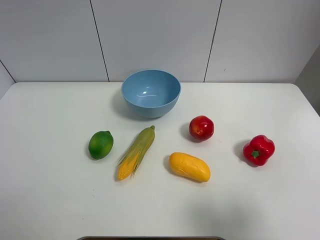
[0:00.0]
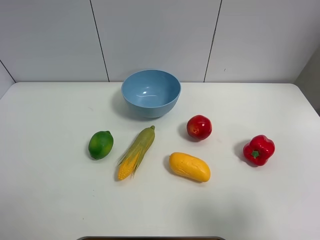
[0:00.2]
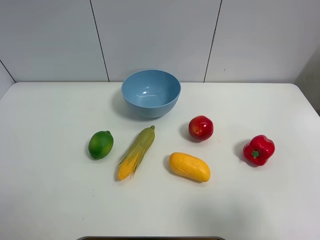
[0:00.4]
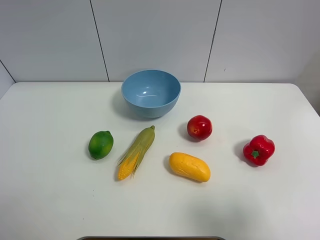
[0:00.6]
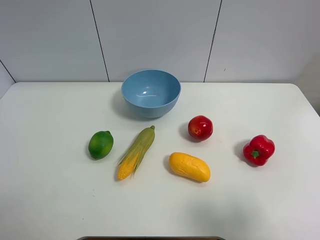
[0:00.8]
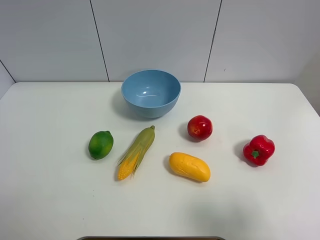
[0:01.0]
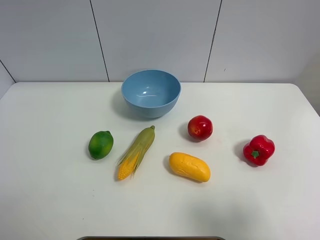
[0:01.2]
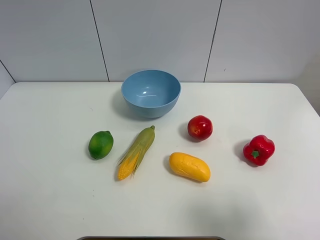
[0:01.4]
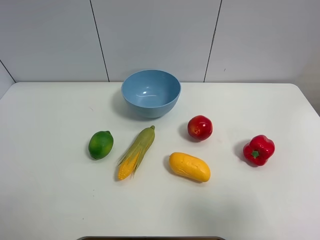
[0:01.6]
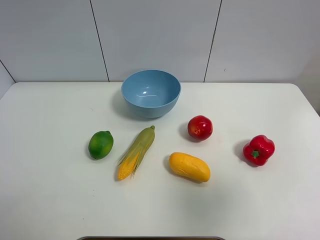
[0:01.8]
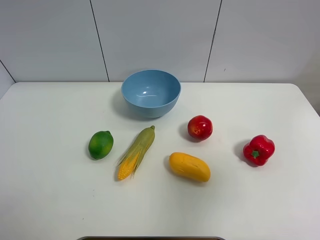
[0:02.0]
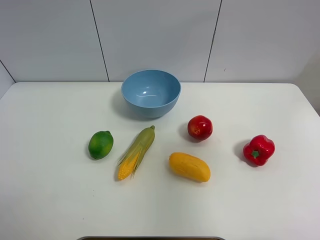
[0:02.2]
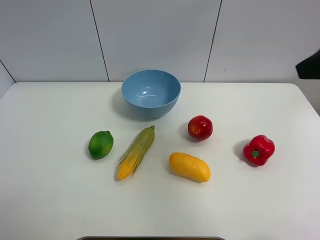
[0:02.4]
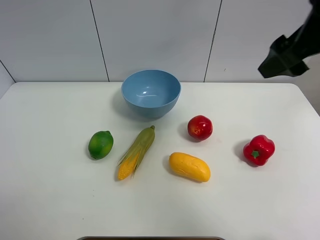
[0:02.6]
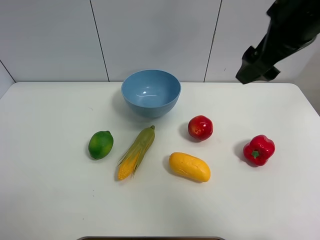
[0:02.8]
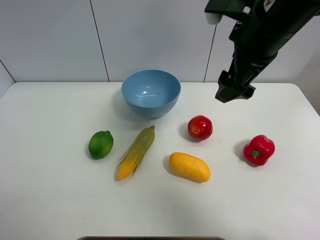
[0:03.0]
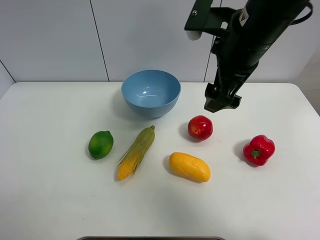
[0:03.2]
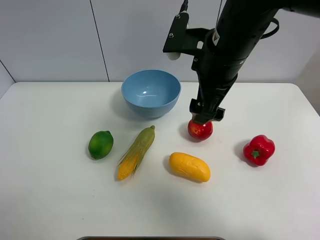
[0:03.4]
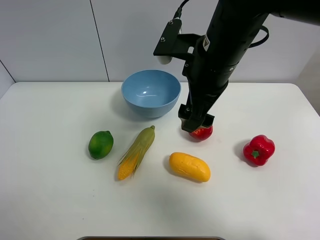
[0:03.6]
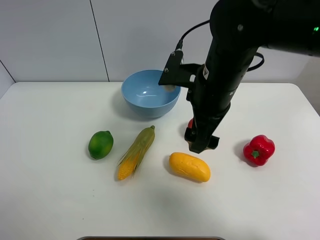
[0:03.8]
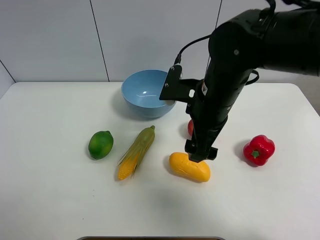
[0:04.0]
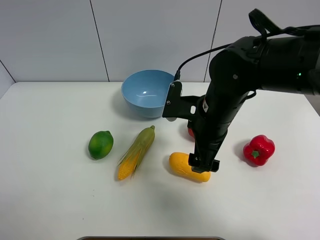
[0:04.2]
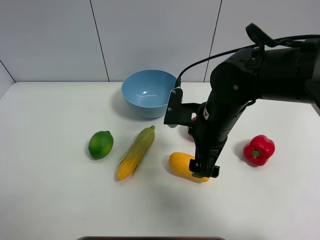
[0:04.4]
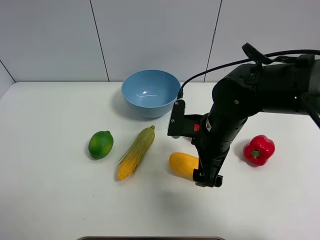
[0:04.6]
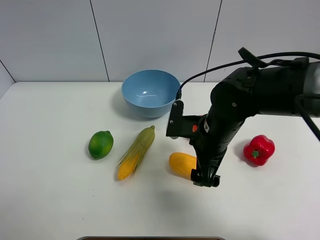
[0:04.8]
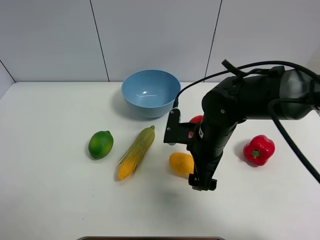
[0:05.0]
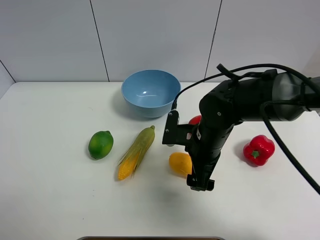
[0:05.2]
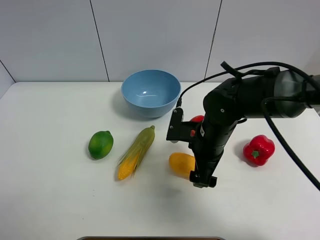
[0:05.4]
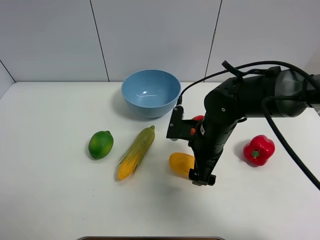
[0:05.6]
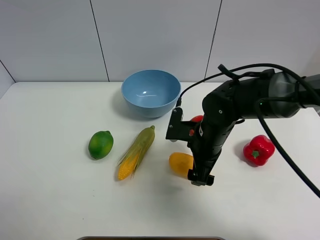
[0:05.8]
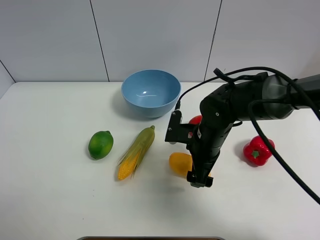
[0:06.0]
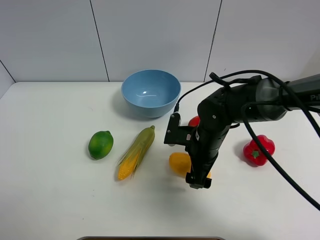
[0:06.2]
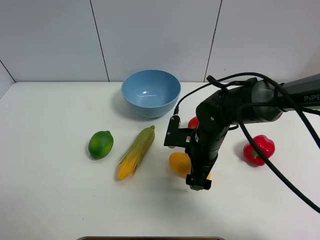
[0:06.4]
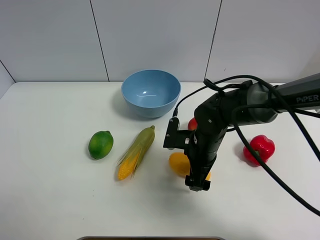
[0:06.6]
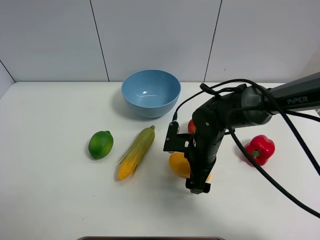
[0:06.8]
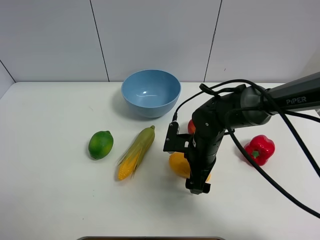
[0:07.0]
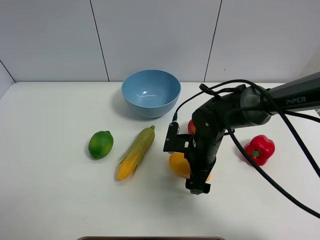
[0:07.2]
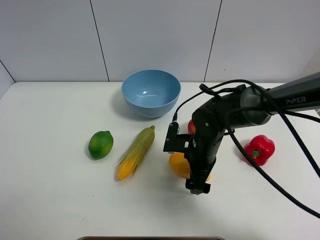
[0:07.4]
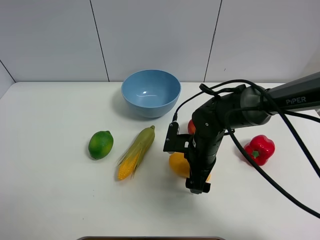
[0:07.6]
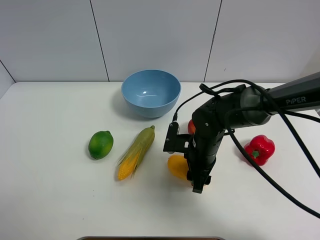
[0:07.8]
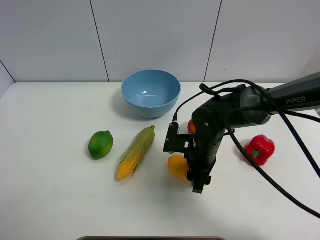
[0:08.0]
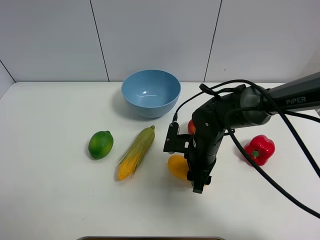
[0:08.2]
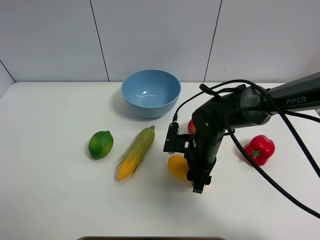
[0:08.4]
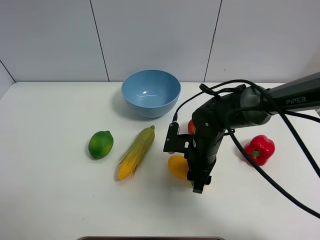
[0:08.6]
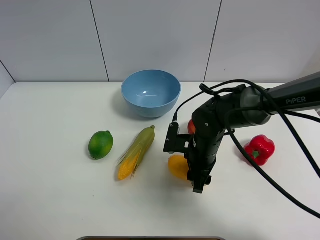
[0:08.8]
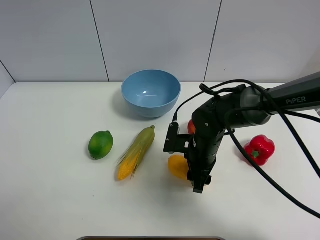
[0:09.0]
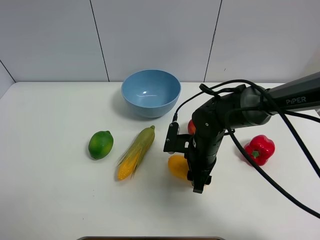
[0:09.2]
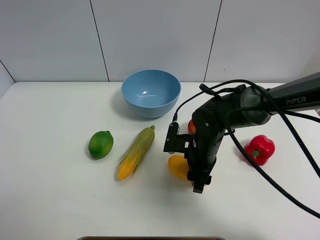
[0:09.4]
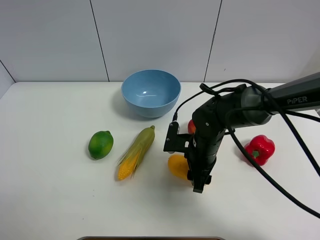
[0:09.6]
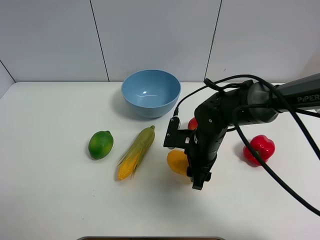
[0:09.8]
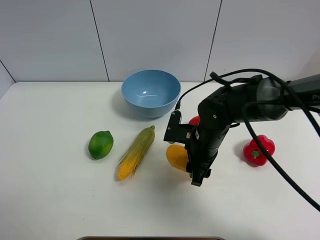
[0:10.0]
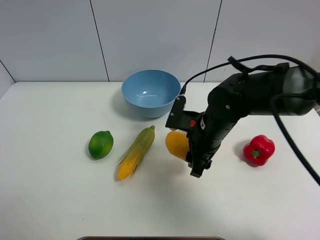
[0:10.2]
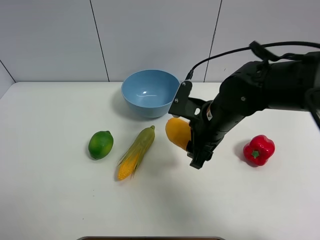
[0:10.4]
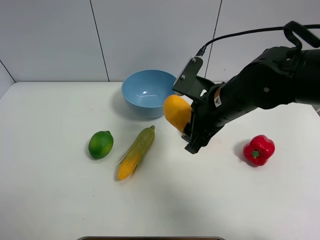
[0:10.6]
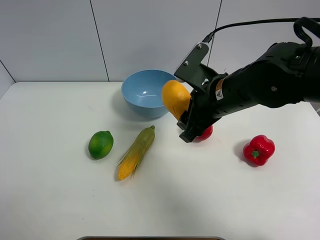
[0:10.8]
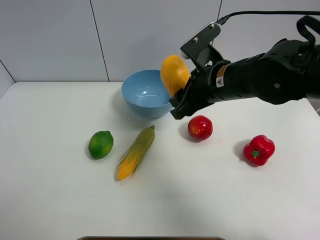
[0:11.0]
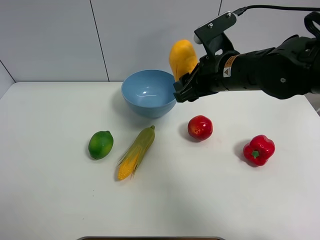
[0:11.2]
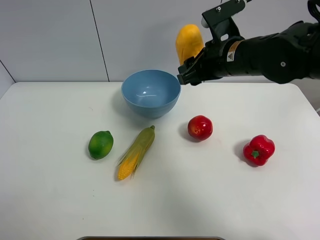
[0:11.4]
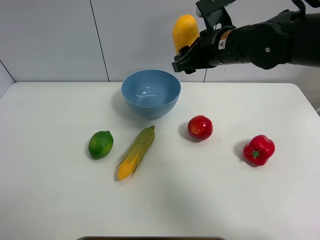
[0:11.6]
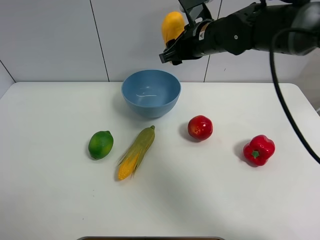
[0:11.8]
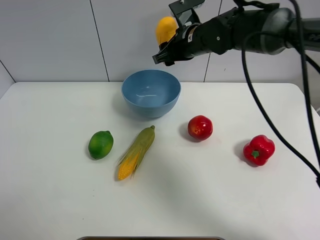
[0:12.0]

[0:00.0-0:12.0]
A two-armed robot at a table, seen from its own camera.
Task of the whole recording: Put the three fruits on the table into a bowl.
Step, 0:00.0 to 0:07.8: Grasp the mango with right gripper.
0:00.0 to 0:01.6: There are only small adjustments of the grippers.
0:01.6 to 0:03.0: The right gripper heads forward and to the left, covering about 30 cm.
0:03.0 to 0:04.4: The right gripper moves downward, about 15 cm.
0:04.4 to 0:06.0: The right gripper moves downward, approximately 5 cm.
0:06.0 to 0:07.6: There are only small adjustments of the grippers.
0:09.0 to 0:10.4: The right gripper heads upward, covering roughly 10 cm.
0:10.4 to 0:12.0: The right gripper travels forward by some 15 cm.

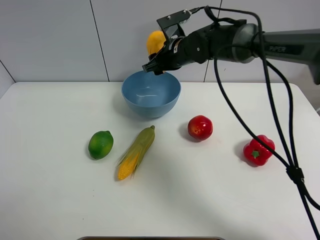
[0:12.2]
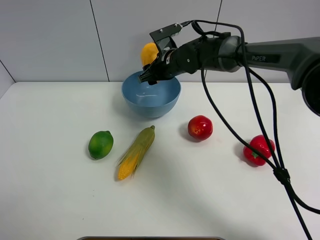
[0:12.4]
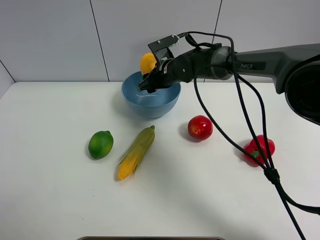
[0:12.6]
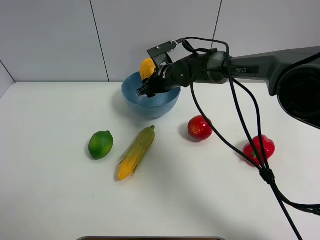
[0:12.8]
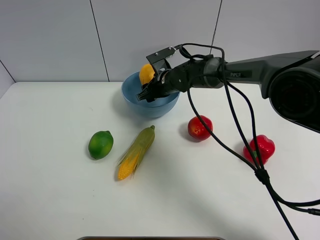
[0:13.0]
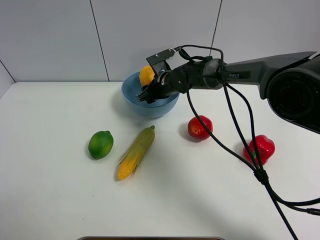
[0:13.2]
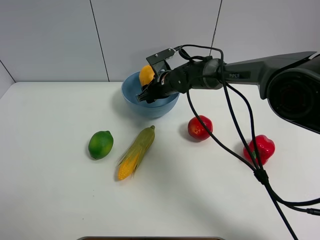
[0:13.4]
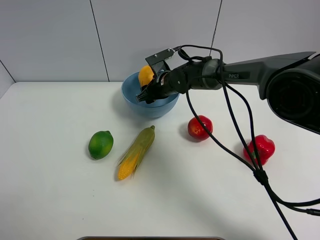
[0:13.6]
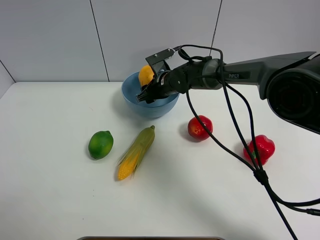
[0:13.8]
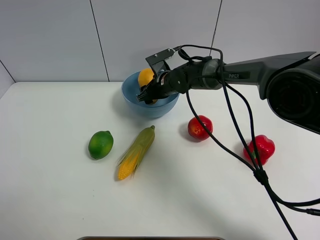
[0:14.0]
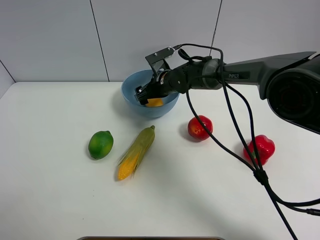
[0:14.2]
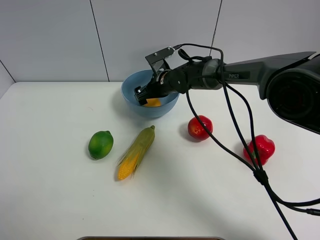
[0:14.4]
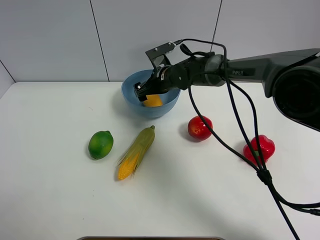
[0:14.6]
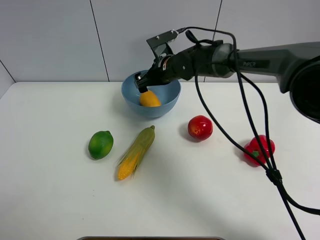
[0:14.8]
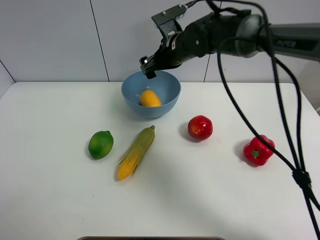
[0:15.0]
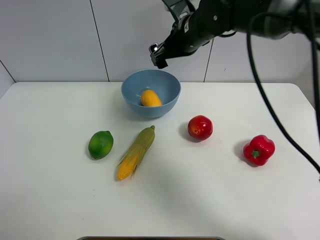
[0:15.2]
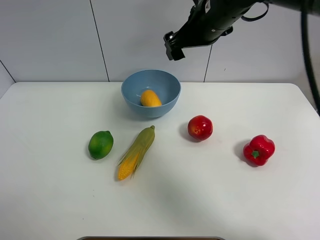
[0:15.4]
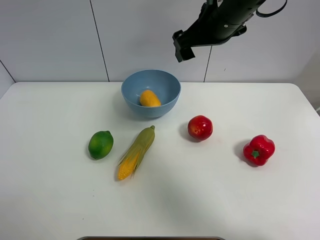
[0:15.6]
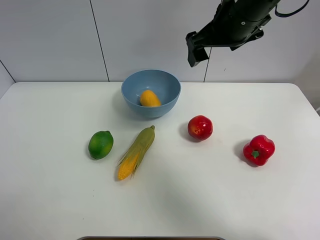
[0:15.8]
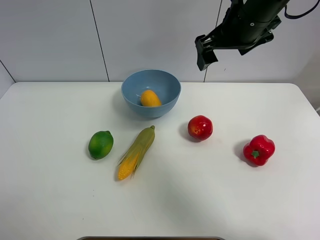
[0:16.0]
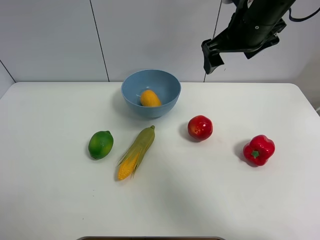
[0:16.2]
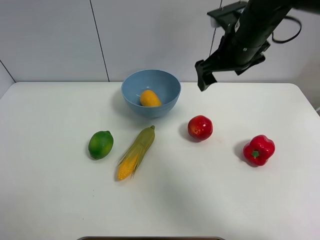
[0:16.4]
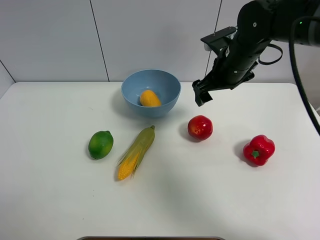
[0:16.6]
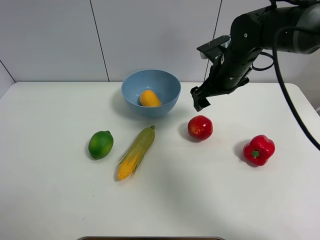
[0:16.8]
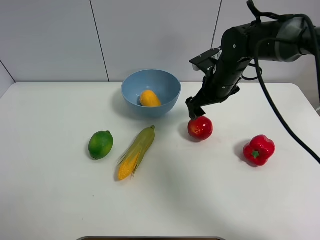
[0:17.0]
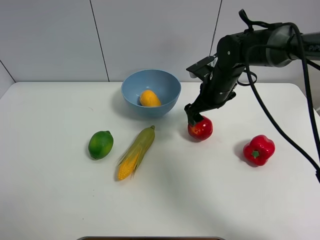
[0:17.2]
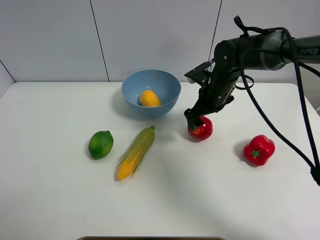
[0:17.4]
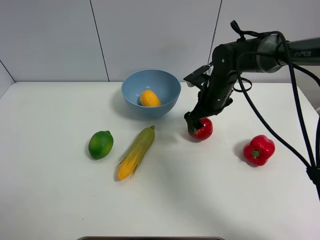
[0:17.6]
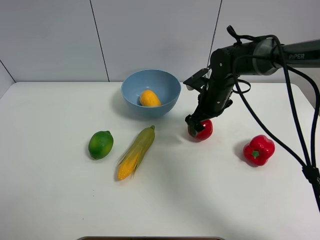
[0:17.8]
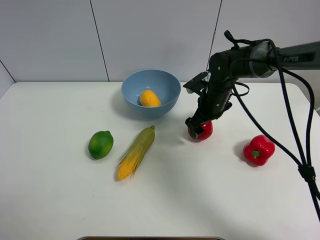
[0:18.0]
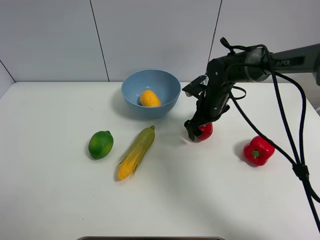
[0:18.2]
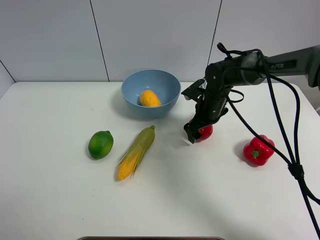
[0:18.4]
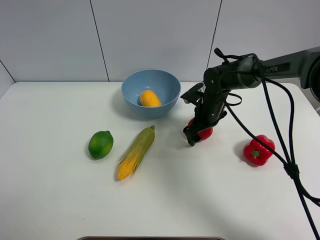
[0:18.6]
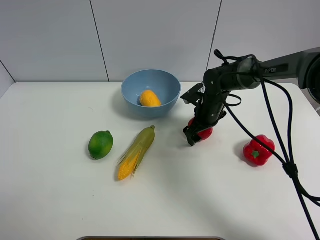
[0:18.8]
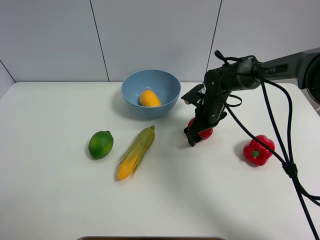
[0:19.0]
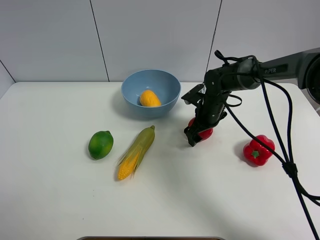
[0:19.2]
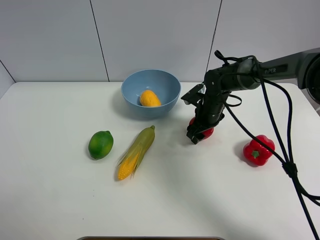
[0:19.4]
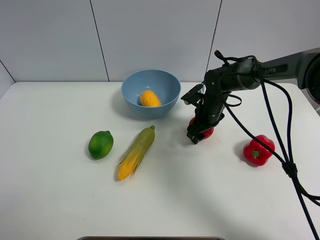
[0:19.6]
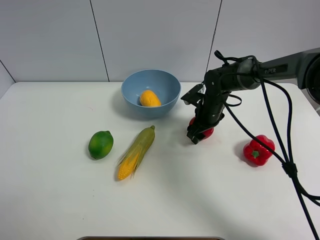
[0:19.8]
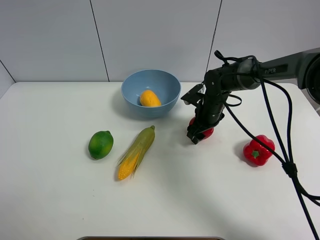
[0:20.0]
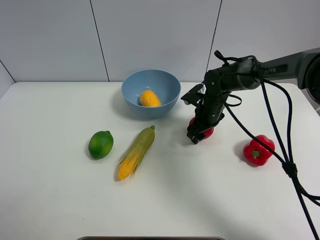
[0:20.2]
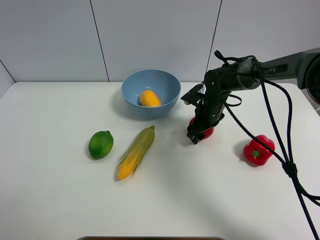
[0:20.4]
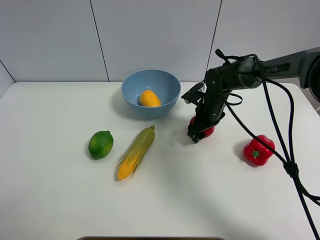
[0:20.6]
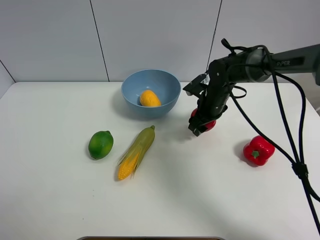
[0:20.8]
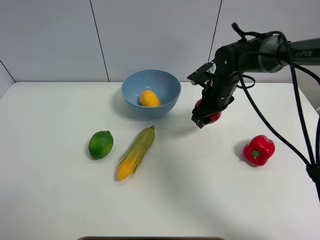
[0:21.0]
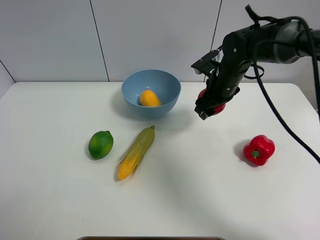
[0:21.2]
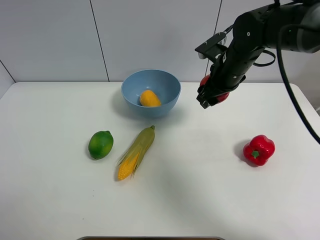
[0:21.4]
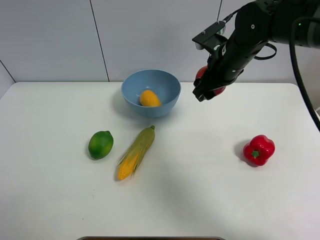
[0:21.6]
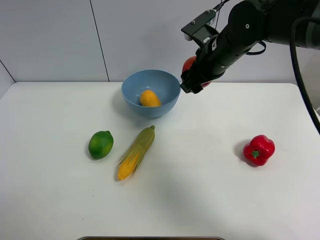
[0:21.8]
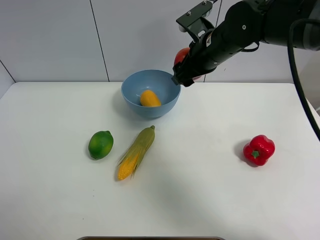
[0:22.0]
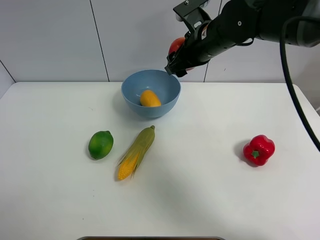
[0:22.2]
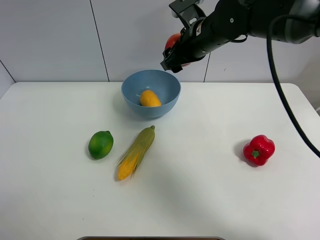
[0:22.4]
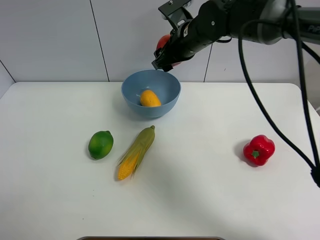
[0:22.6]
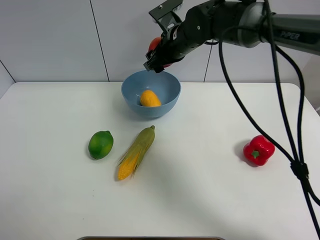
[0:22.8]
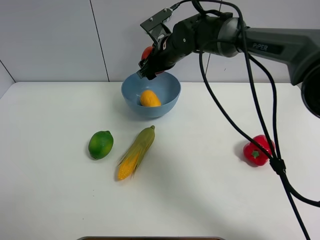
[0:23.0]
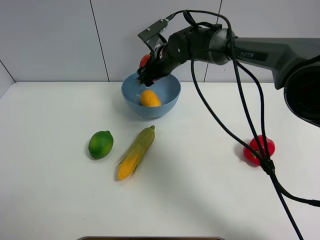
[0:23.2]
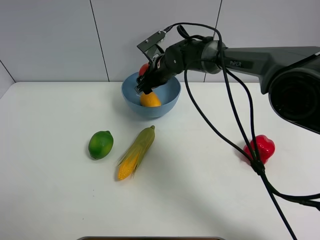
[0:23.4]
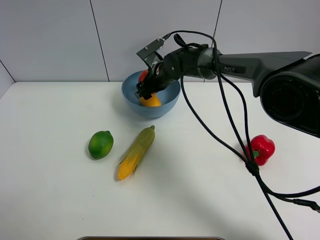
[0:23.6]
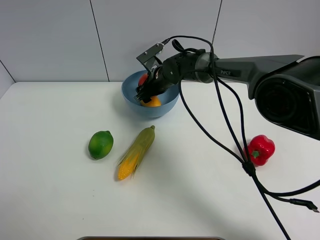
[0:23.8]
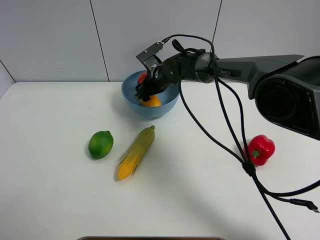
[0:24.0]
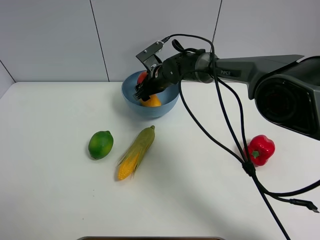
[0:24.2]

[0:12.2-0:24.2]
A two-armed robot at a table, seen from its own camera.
Task of the whole recording: Put the three fruits on the table into a bowl.
Step, 0:12.2 to 0:14.6: Place the mango in the blue bowl with right gripper.
Step, 0:14.8 to 0:19.4: Grasp the pomegranate with right gripper.
0:12.2 to 0:13.8: The right gripper shifts approximately 10 cm downward.
0:13.8 to 0:15.2: The right gripper shifts about 15 cm upward, and opens.
0:15.2 to 0:16.6: The right gripper travels to the right and downward by approximately 10 cm.
0:16.6 to 0:18.2: The right gripper heads downward, covering some 10 cm.
0:18.2 to 0:19.8: The right gripper closes its fingers.
0:19.8 to 0:21.2: The right gripper moves upward, approximately 10 cm.
0:21.2 to 0:22.6: The right gripper moves to the left and upward, about 10 cm.
0:22.6 to 0:24.2: The right gripper shifts some 15 cm downward.
